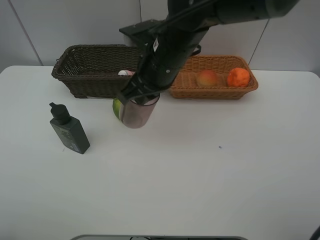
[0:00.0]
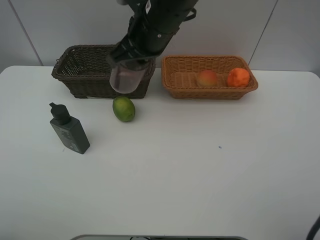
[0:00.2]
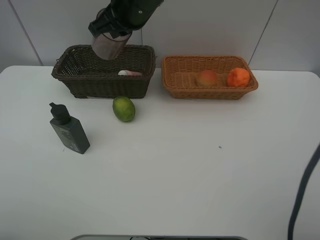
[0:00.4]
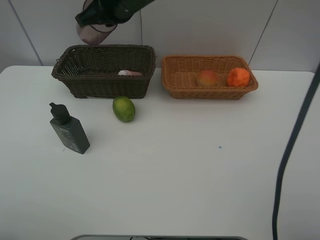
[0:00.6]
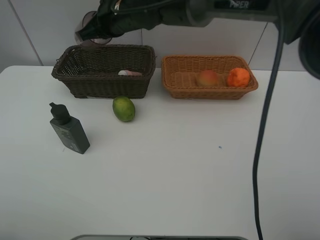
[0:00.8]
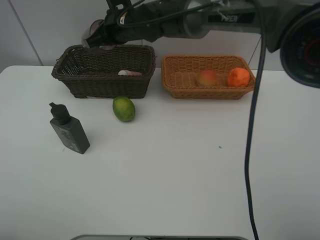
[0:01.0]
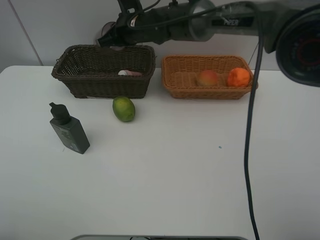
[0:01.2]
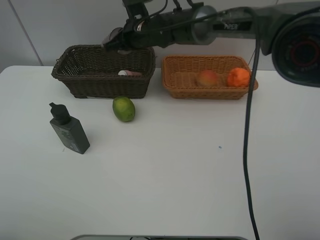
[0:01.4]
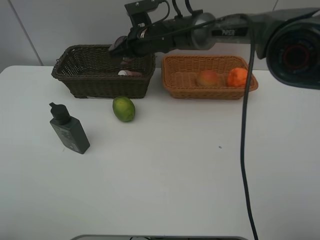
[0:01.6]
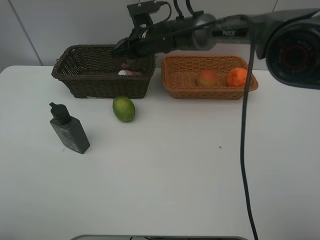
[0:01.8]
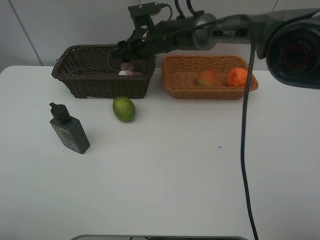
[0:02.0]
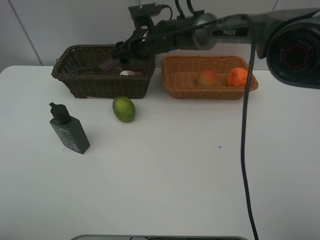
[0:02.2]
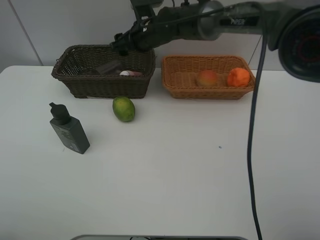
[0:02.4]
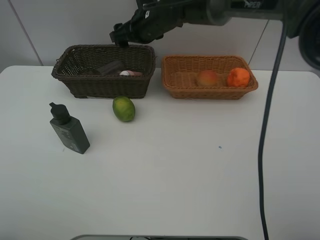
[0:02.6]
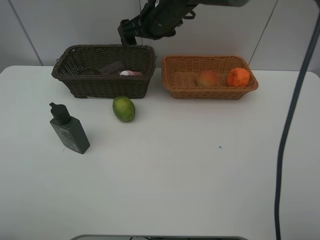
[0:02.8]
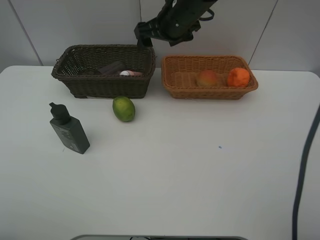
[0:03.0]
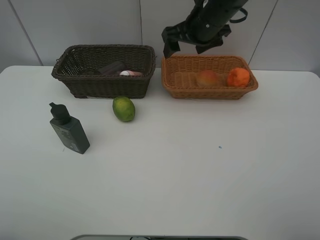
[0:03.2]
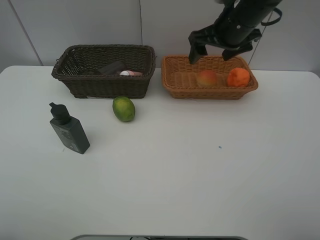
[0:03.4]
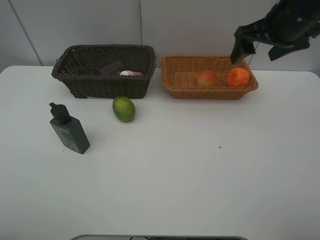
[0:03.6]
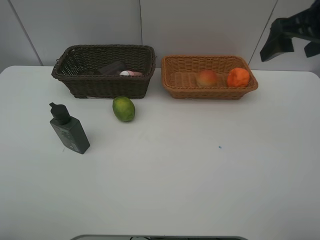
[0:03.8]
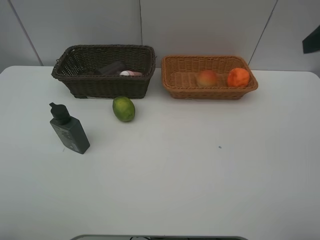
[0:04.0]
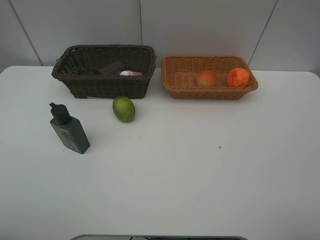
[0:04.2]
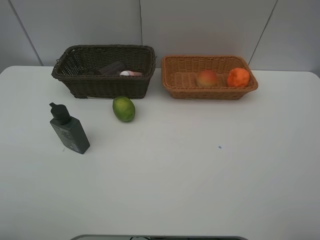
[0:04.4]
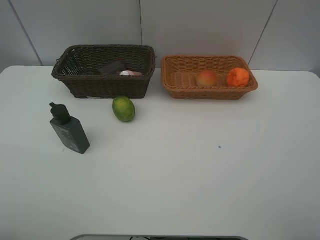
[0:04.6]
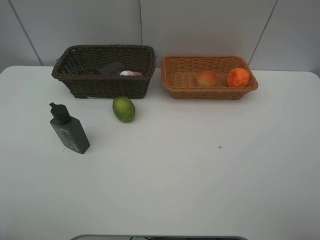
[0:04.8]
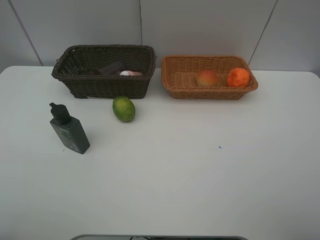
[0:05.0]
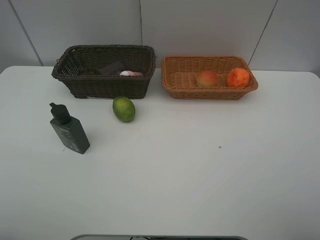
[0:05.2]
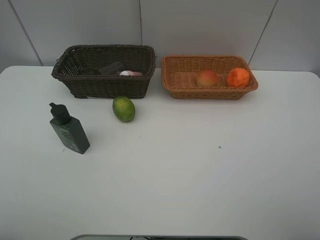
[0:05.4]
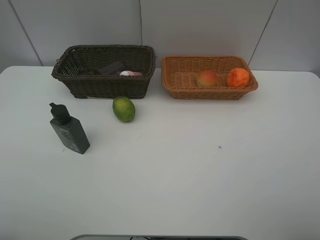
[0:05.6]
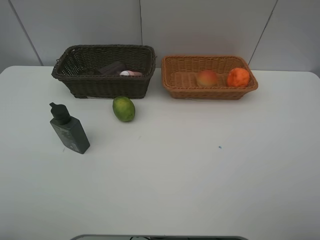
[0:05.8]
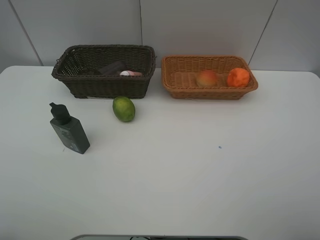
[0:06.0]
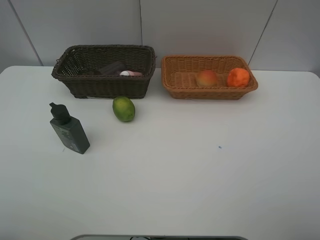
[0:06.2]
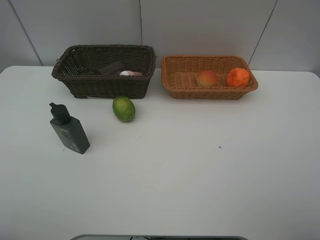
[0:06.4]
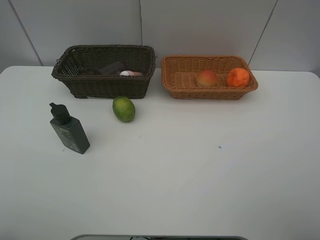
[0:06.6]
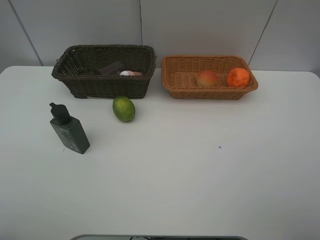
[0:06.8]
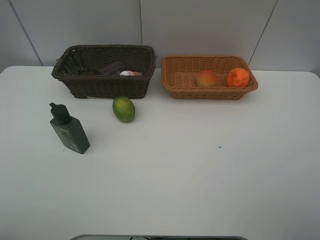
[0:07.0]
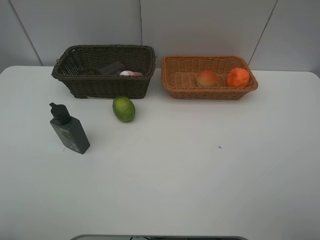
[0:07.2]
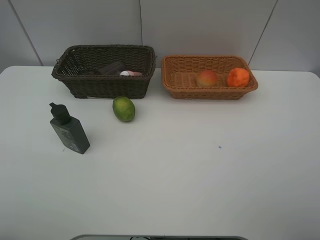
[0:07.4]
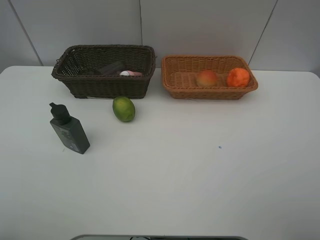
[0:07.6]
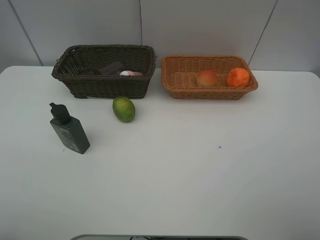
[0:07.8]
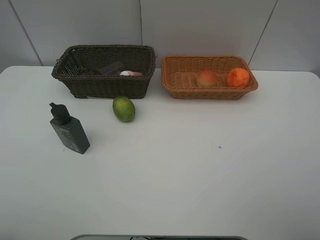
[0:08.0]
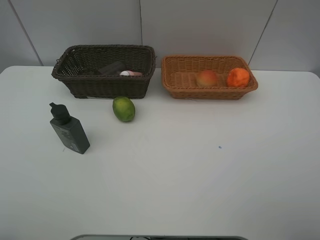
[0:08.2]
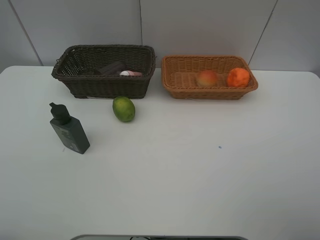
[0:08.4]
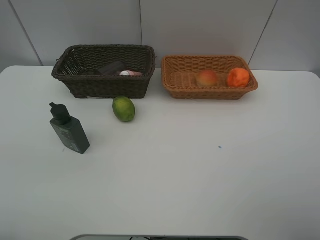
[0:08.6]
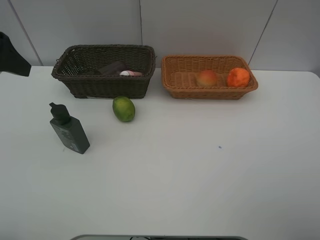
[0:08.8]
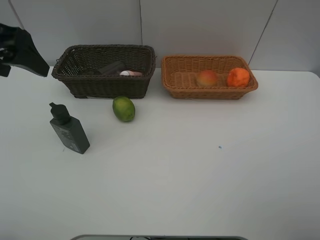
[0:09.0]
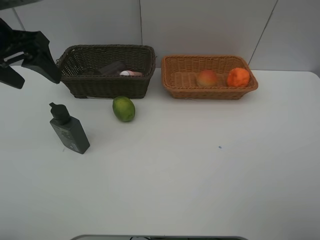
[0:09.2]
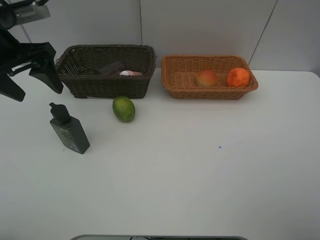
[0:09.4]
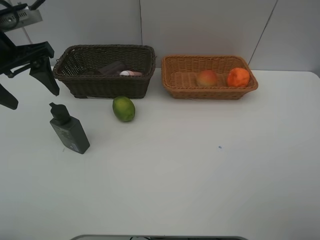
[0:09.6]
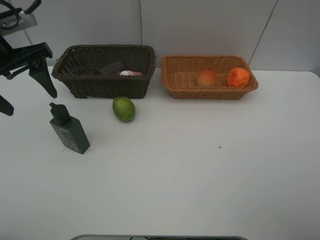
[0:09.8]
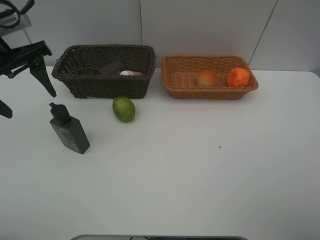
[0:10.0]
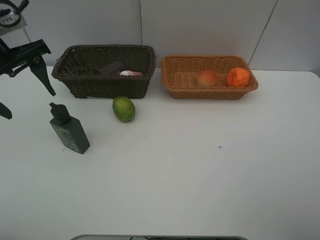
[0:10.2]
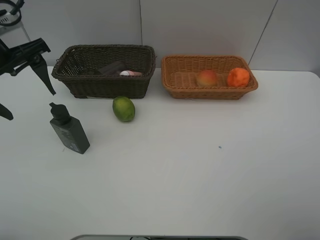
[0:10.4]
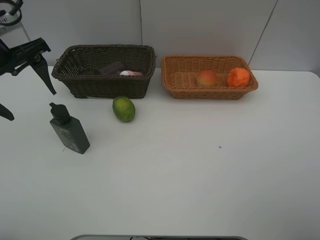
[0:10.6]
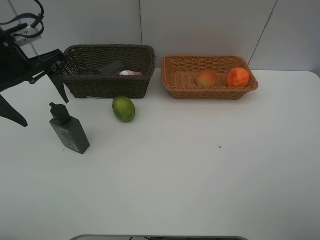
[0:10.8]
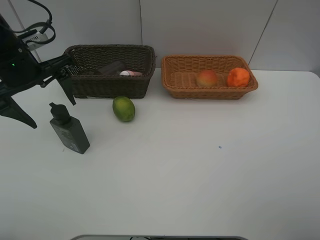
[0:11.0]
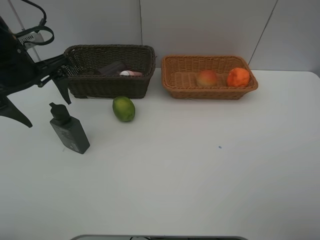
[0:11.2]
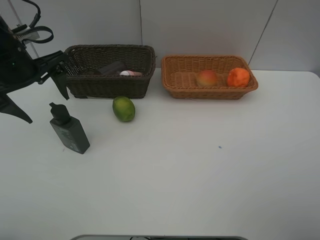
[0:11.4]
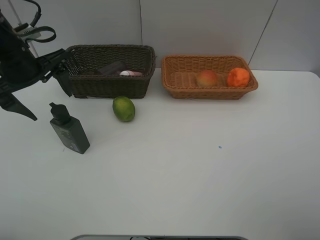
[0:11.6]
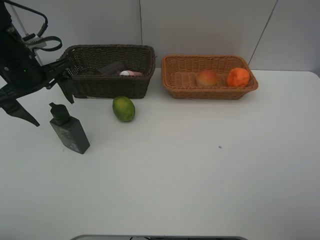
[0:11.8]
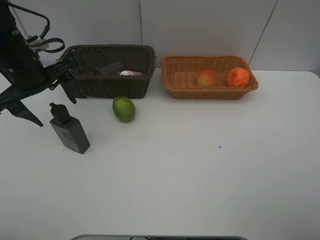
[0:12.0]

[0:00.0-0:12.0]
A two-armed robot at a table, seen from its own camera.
Task of the whole recording: place multiple objects separately in different baskets.
0:00.0 to 0:01.6: The right gripper goes some 15 cm forward and downward.
0:01.6 to 0:03.0: The right gripper shifts roughly 10 cm upward and to the right, and opens.
0:03.0 to 0:04.4: The right gripper goes roughly 40 cm backward, to the right and upward.
0:07.6 to 0:09.0: The left gripper travels forward by about 25 cm.
0:10.4 to 0:12.0: The left gripper travels downward by approximately 5 cm.

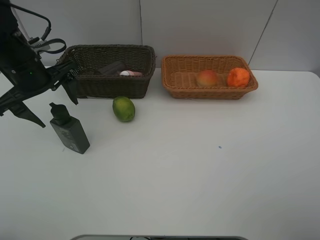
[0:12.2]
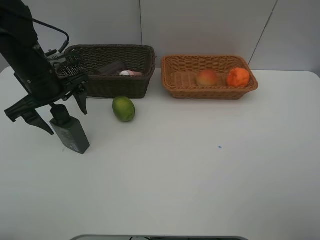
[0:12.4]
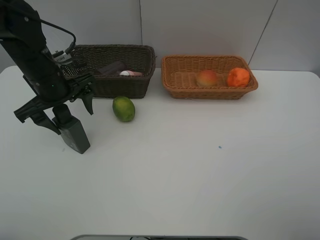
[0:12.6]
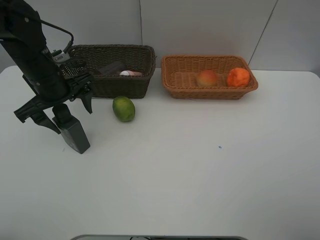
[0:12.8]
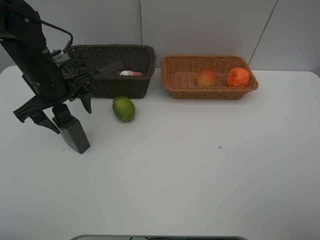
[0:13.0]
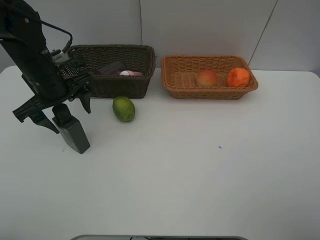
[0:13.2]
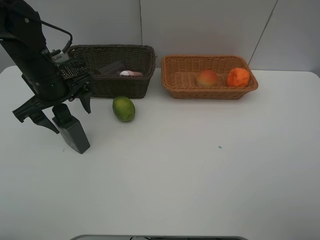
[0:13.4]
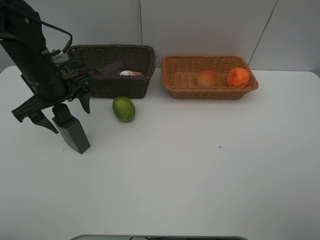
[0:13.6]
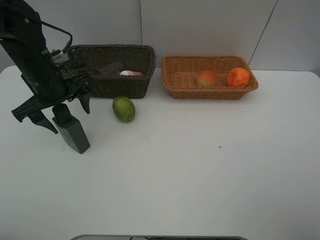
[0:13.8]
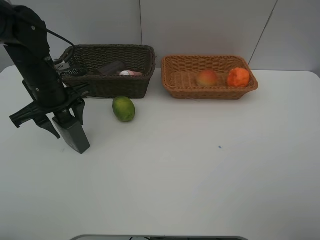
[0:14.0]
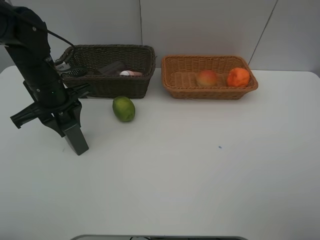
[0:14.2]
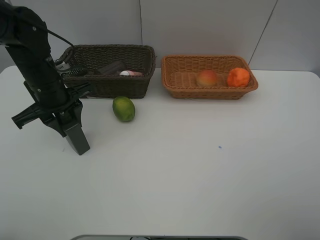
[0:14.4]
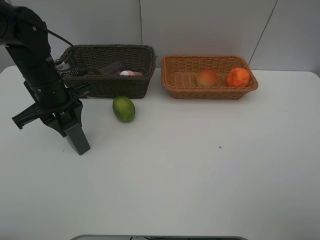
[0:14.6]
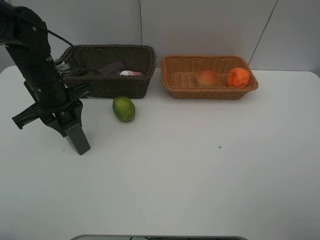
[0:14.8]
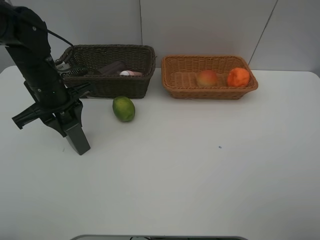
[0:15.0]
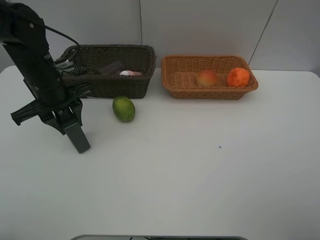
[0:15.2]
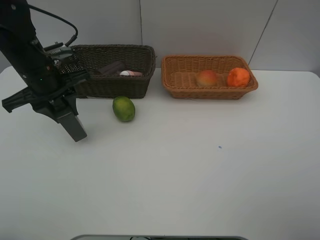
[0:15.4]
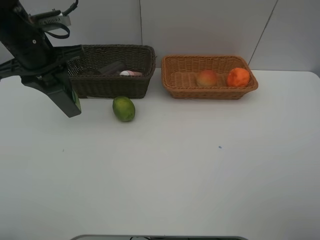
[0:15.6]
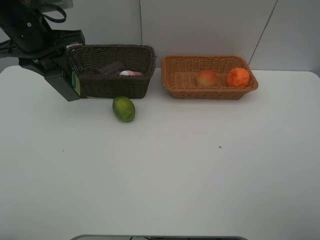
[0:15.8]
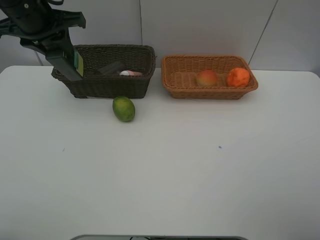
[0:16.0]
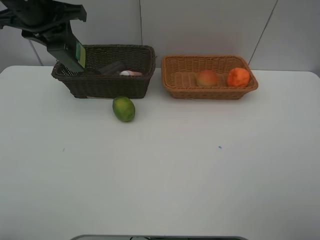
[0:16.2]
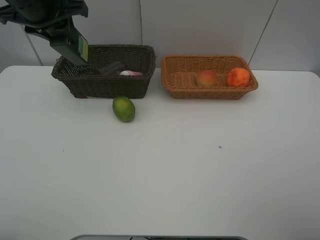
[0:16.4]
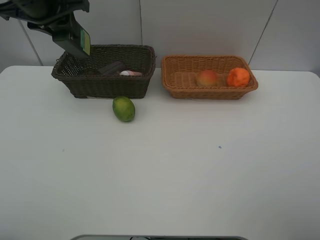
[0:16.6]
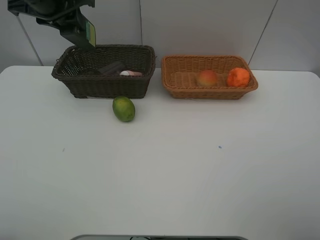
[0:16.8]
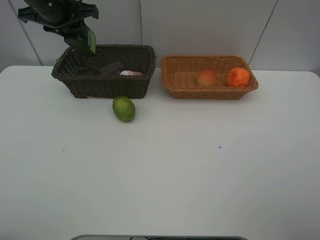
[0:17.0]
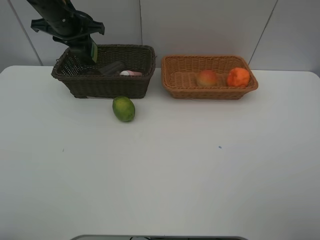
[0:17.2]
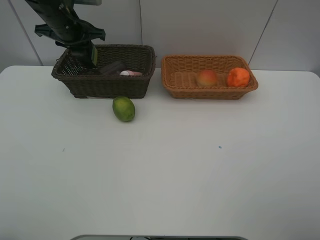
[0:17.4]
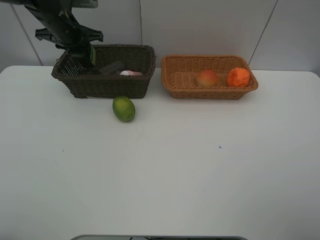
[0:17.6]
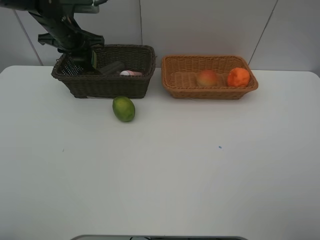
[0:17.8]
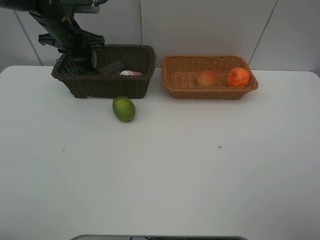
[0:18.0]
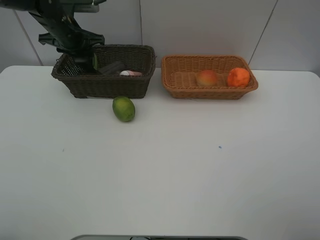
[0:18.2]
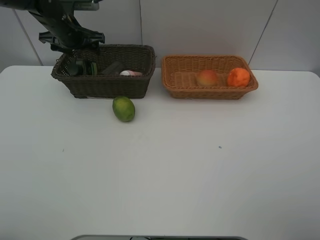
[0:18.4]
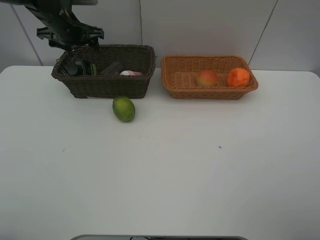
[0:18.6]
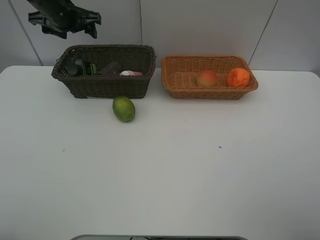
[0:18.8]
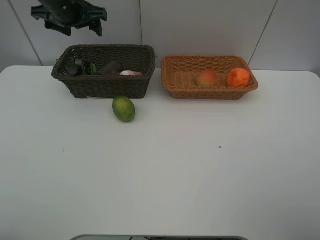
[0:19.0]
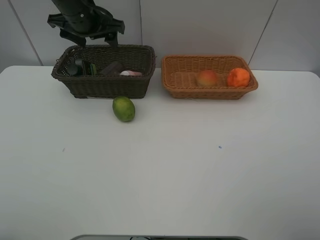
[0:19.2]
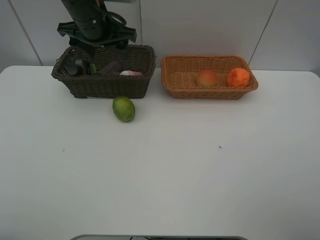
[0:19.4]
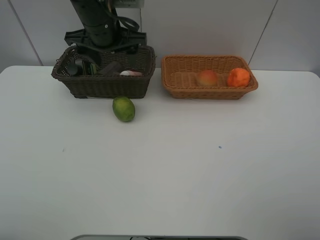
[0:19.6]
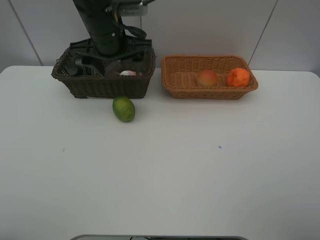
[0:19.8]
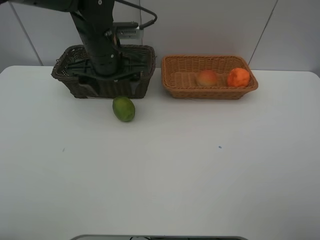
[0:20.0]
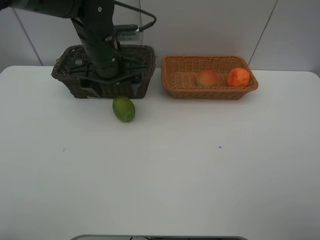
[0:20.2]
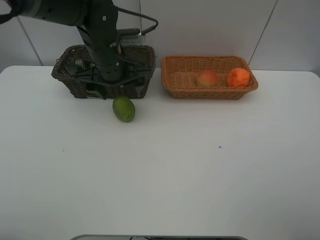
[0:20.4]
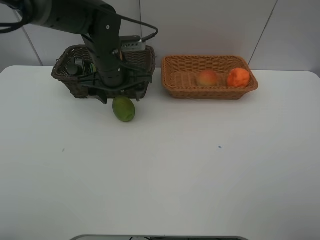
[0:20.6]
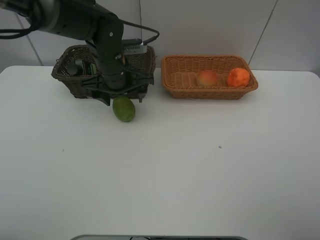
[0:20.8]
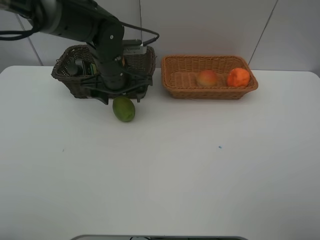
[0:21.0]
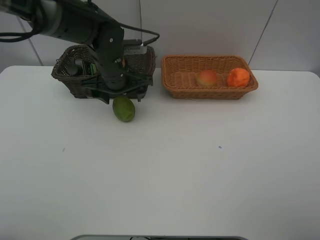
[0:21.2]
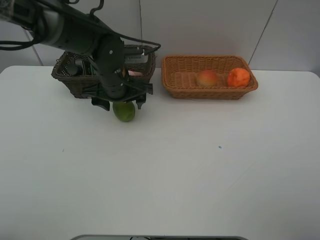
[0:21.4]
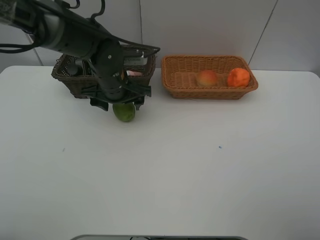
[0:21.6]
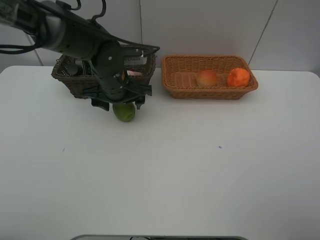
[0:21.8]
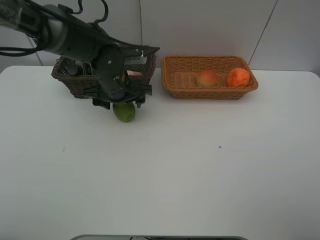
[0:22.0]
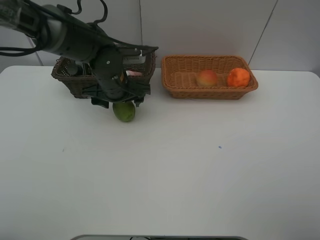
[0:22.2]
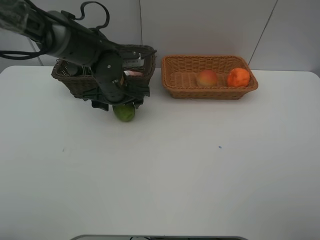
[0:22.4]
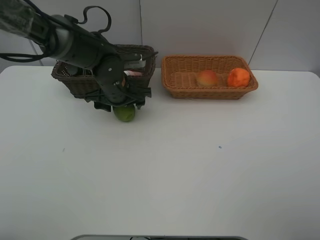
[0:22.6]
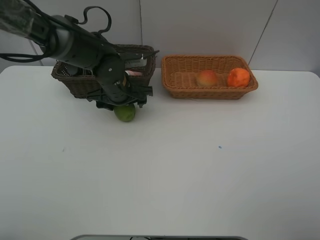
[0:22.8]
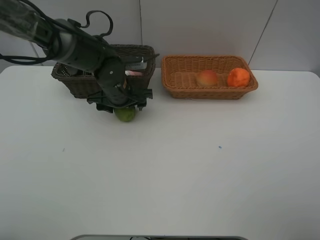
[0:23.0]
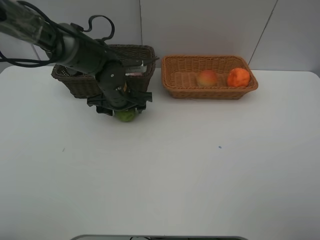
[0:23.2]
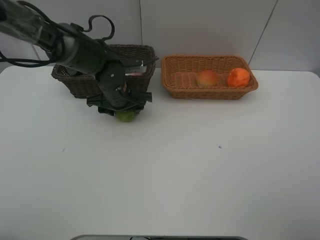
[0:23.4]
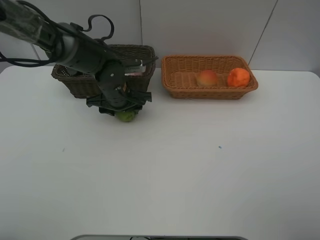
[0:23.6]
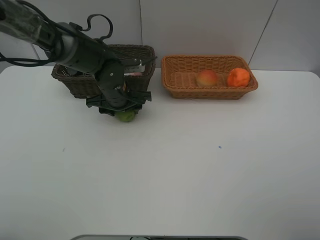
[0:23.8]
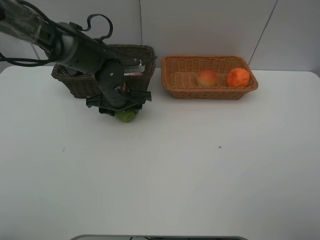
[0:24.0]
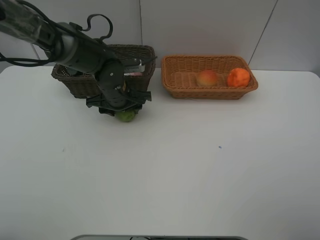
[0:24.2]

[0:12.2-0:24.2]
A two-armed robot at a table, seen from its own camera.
Task of the whole recording: place multiple objects separately in different baskets.
0:12.2 to 0:13.8: The grippers stay close to where they were, moving slightly.
0:13.8 to 0:15.2: The left gripper closes.
0:15.2 to 0:16.6: The left gripper goes roughly 15 cm upward.
0:16.6 to 0:18.2: The left gripper moves downward and forward, some 15 cm, and opens its fingers.
0:18.2 to 0:19.8: The left gripper shifts approximately 15 cm to the right and backward, and opens up.
0:19.8 to 0:21.2: The left gripper moves downward, some 10 cm.
0:21.2 to 0:22.6: The grippers make only small movements.
0:22.6 to 0:24.2: The left gripper closes up.
